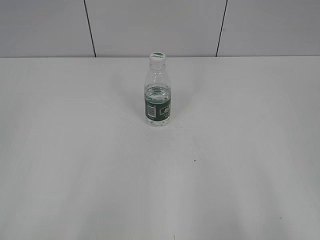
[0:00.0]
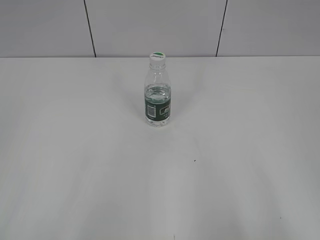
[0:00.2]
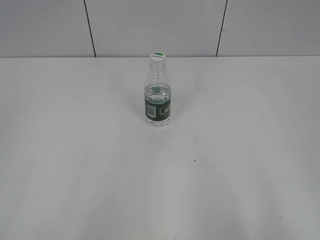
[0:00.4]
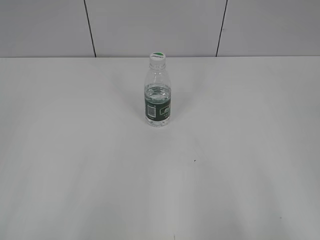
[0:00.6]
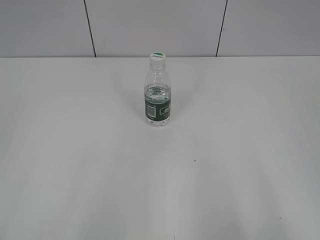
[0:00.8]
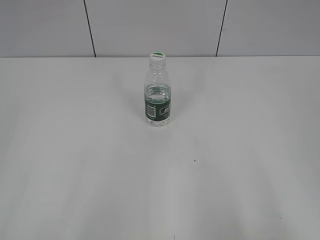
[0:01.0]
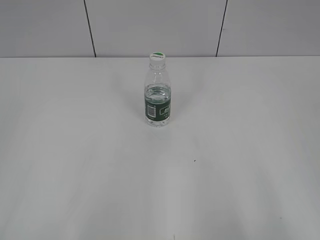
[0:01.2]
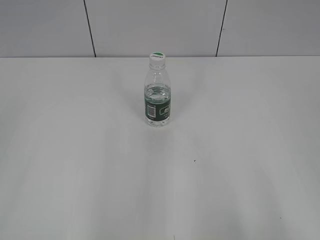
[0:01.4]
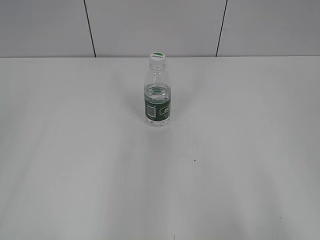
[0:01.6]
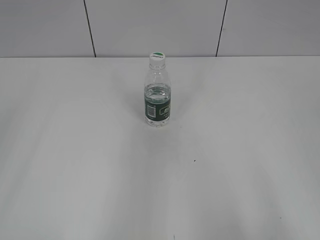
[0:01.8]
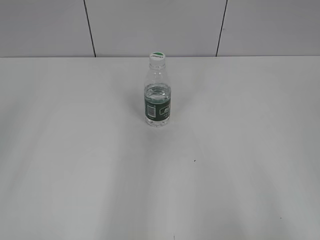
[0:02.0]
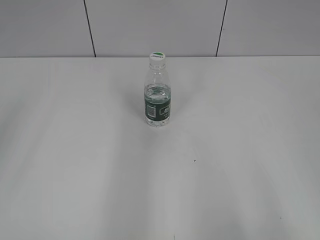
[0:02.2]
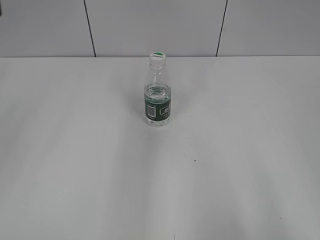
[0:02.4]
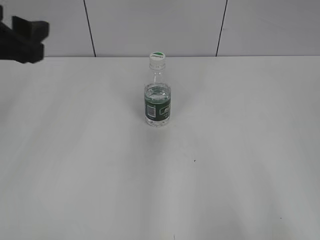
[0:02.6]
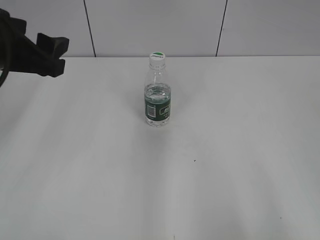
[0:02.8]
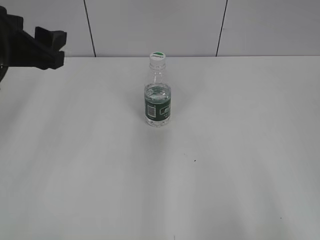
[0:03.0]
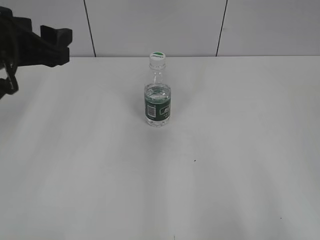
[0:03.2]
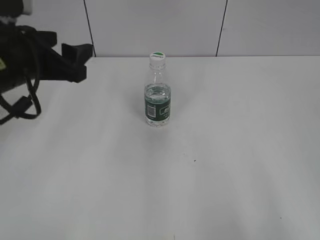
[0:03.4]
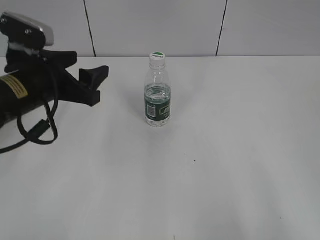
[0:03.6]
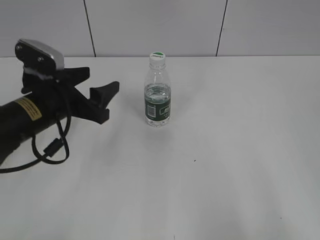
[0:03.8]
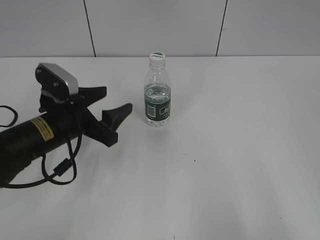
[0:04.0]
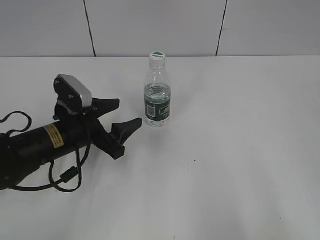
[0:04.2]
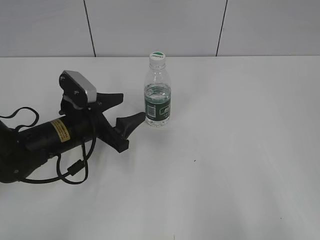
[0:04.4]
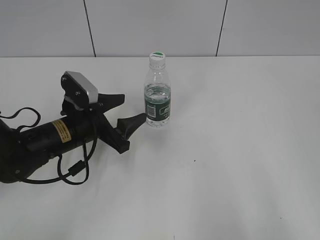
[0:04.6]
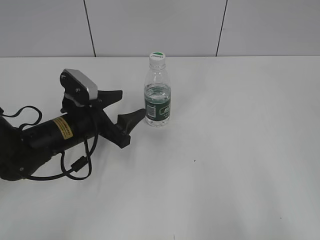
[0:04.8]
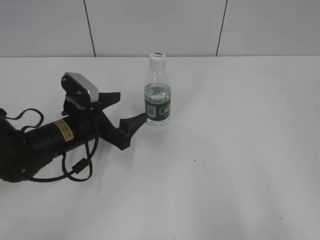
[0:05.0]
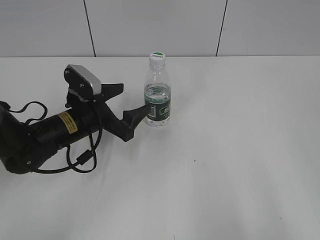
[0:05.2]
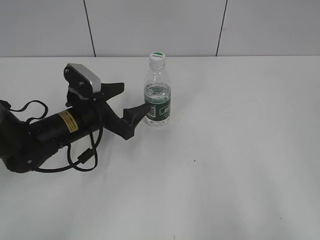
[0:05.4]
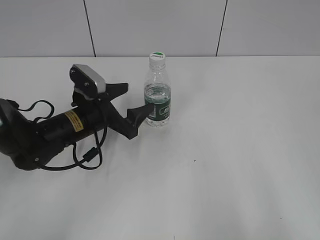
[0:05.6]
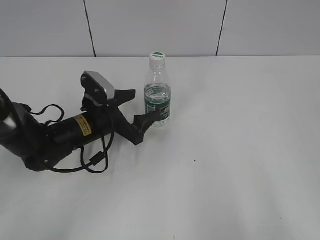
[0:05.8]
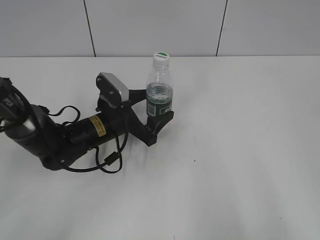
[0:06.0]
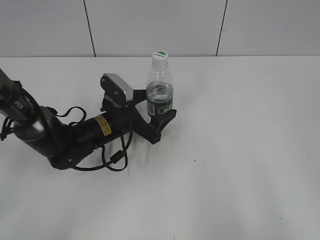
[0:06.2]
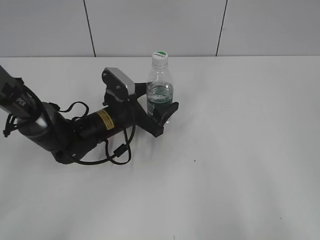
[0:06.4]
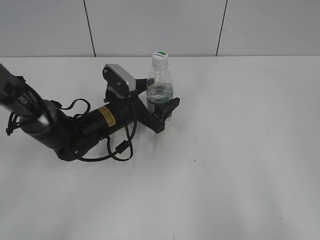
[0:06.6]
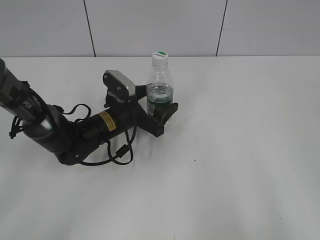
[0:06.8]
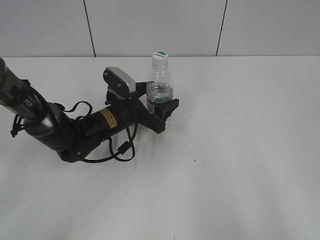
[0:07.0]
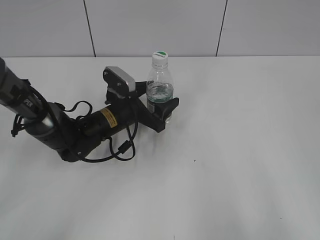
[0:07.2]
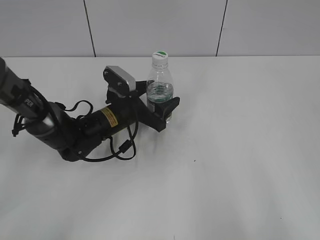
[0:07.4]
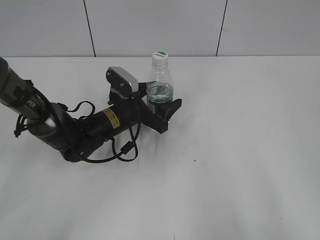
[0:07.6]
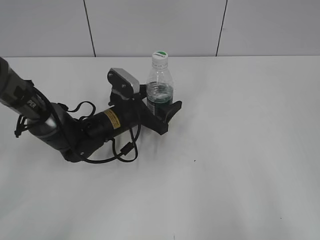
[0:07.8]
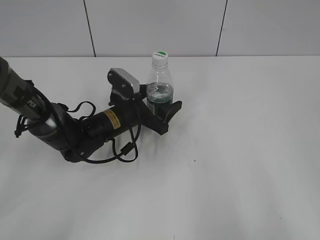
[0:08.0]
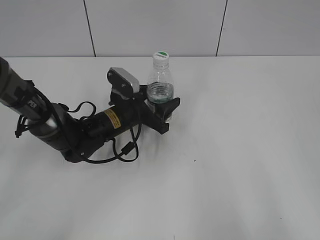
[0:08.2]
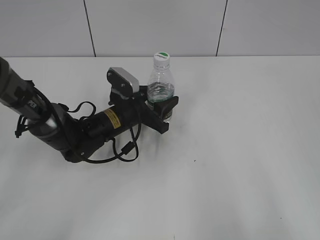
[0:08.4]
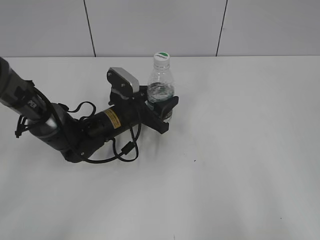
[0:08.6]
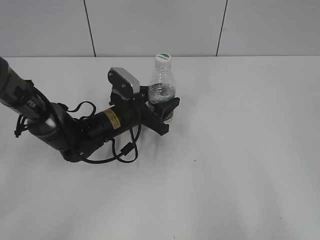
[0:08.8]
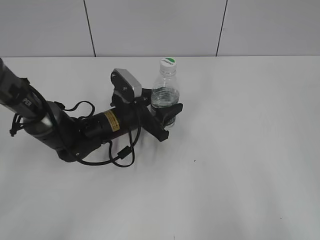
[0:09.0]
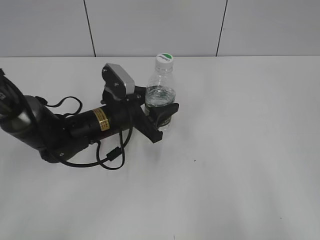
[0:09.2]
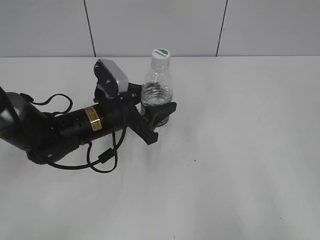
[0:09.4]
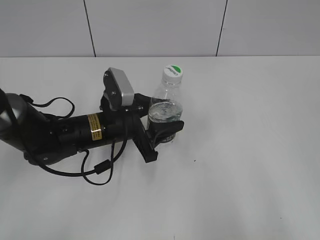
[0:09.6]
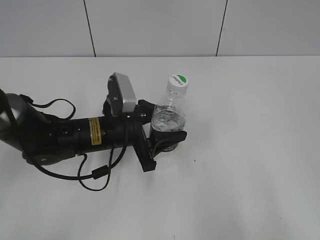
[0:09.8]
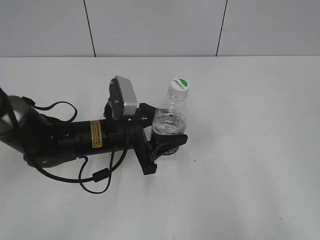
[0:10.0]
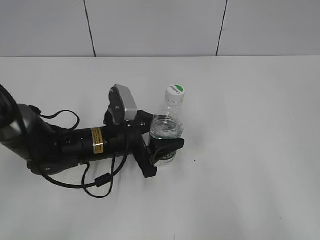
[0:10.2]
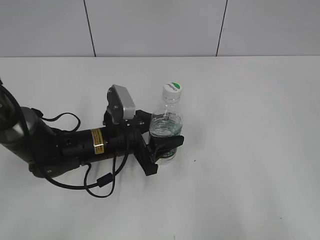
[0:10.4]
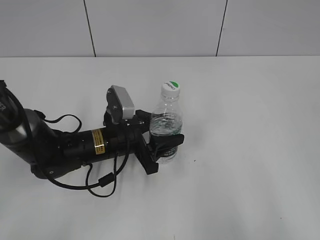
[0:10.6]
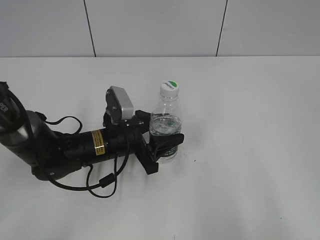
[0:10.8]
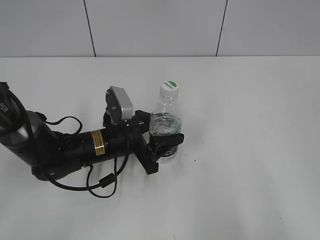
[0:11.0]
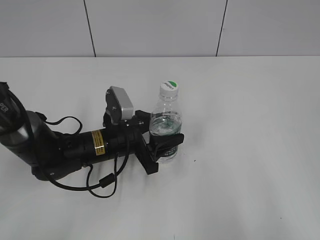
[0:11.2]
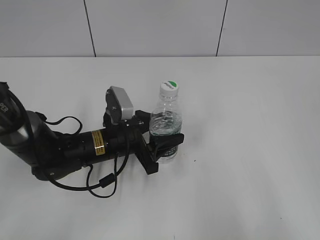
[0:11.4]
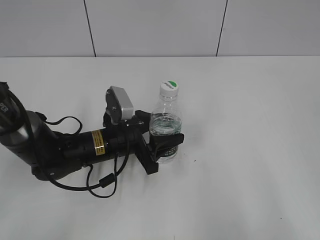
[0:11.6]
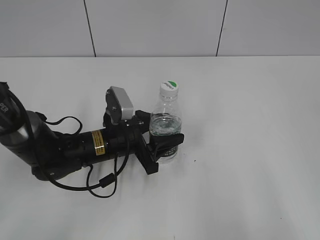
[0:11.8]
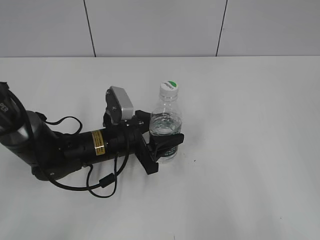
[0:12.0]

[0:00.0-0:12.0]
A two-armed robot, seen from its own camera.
Step, 0:00.0 to 0:08.4: Grasp the bottle and move it to the center of the table with the left gripper.
0:01.6 to 0:03.0: The left gripper is displaced forward by approximately 25 cm.
0:03.0 to 0:04.4: The left gripper travels downward by about 20 cm.
0:04.4 to 0:06.0: The left gripper moves about 5 cm, and opens up.
0:06.0 to 0:07.6: The grippers make only small movements.
0:07.6 to 0:09.0: The left gripper closes up.
0:09.0 to 0:10.4: The left gripper is displaced backward by some 5 cm.
0:10.4 to 0:12.0: The grippers stay close to where they were, moving slightly.

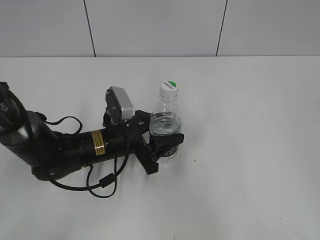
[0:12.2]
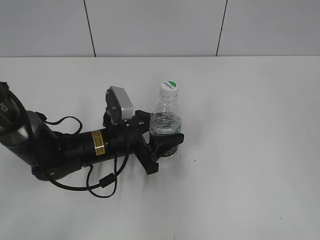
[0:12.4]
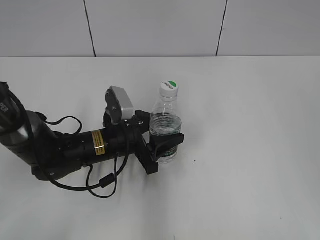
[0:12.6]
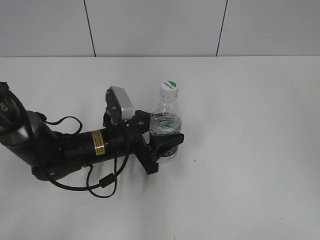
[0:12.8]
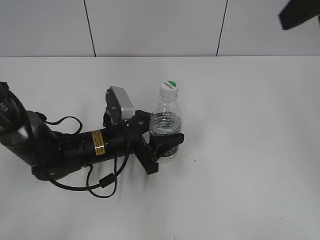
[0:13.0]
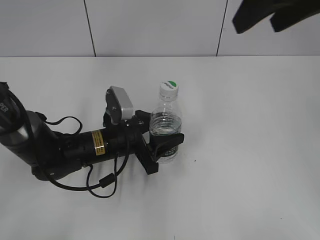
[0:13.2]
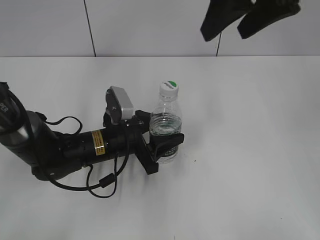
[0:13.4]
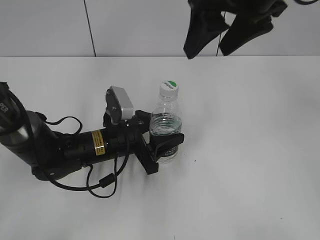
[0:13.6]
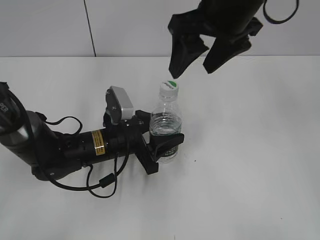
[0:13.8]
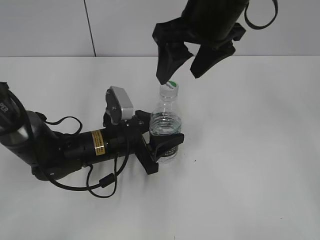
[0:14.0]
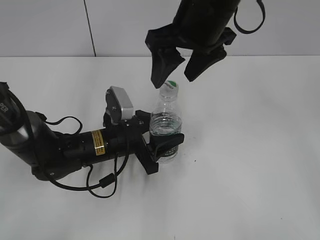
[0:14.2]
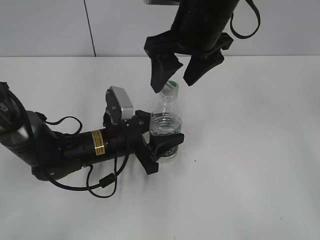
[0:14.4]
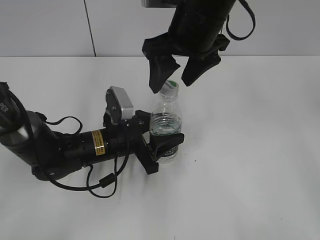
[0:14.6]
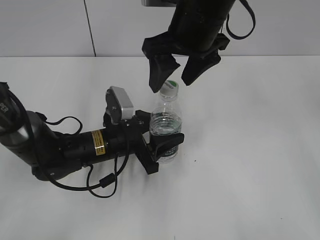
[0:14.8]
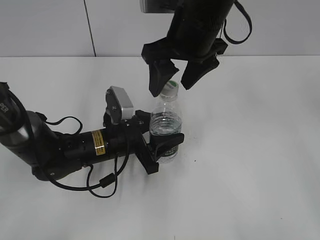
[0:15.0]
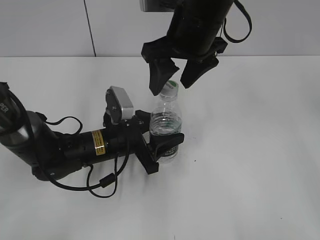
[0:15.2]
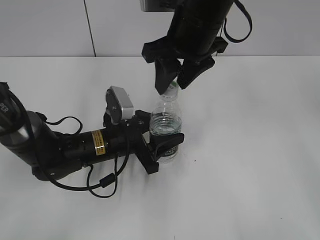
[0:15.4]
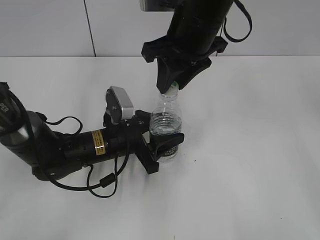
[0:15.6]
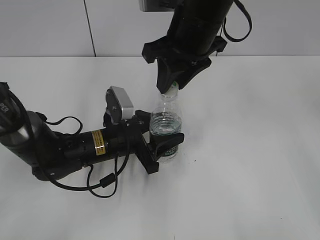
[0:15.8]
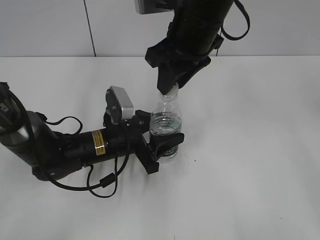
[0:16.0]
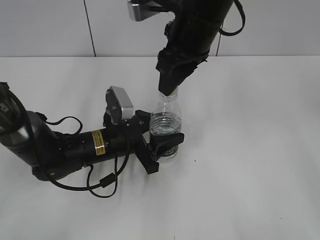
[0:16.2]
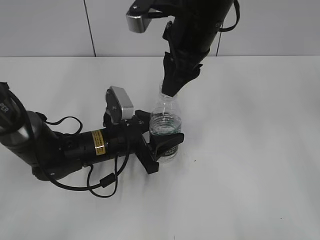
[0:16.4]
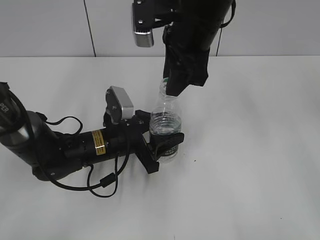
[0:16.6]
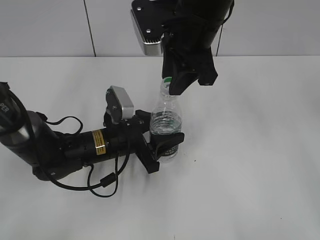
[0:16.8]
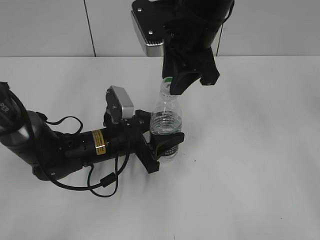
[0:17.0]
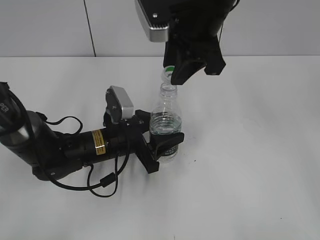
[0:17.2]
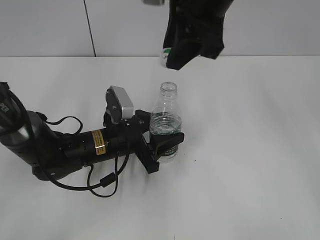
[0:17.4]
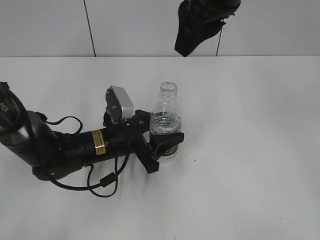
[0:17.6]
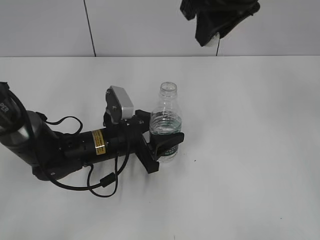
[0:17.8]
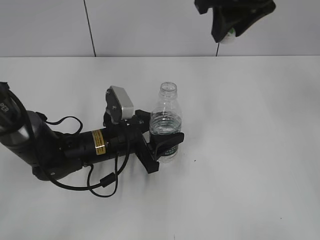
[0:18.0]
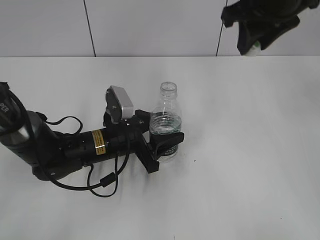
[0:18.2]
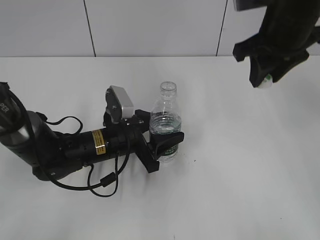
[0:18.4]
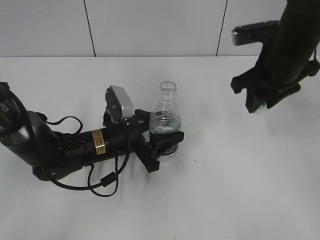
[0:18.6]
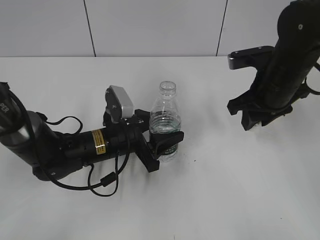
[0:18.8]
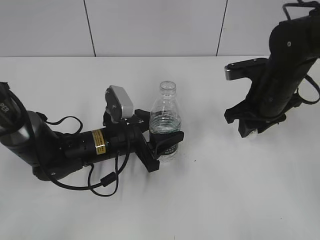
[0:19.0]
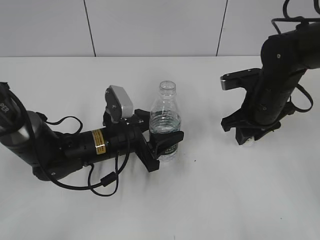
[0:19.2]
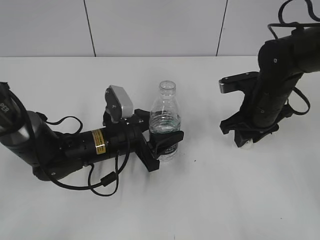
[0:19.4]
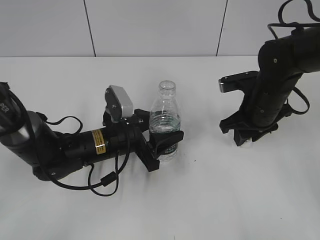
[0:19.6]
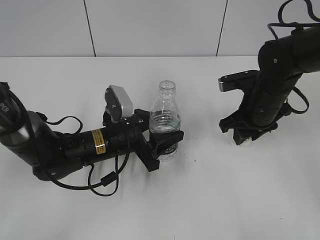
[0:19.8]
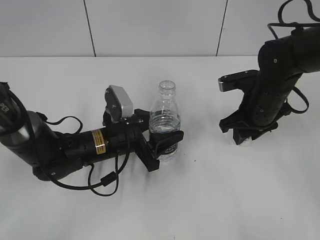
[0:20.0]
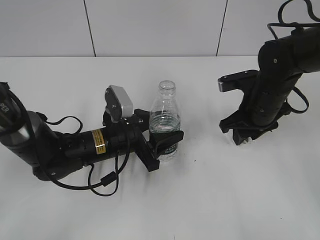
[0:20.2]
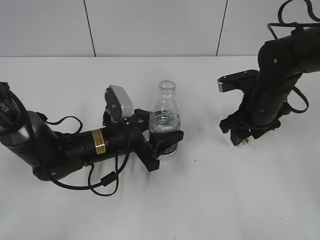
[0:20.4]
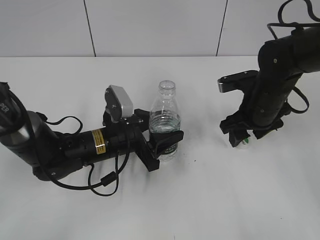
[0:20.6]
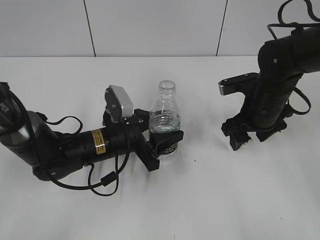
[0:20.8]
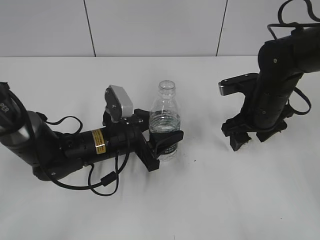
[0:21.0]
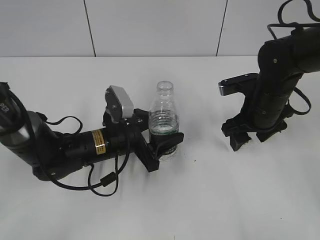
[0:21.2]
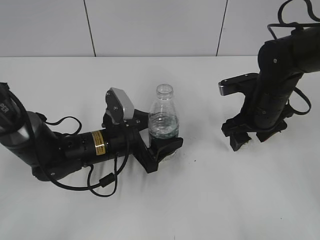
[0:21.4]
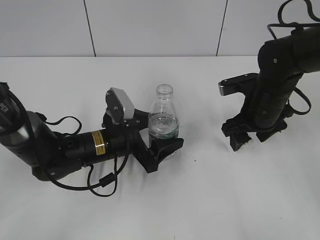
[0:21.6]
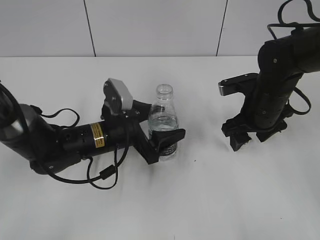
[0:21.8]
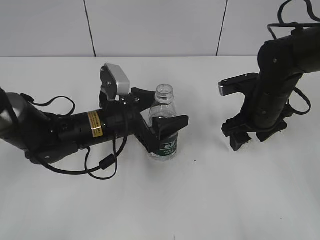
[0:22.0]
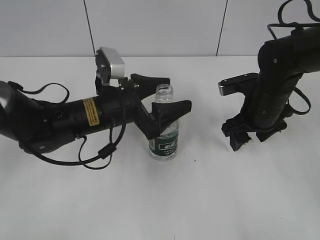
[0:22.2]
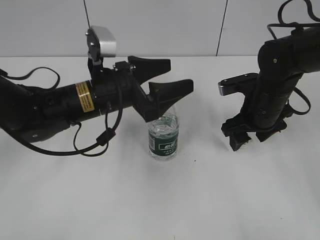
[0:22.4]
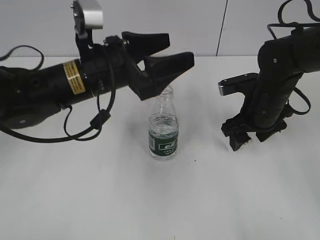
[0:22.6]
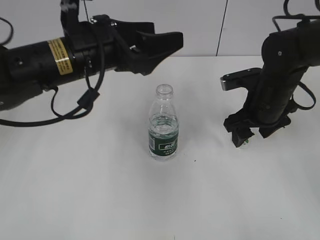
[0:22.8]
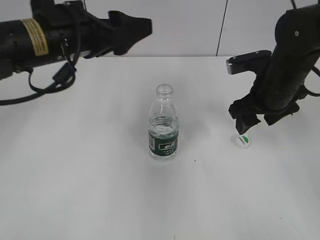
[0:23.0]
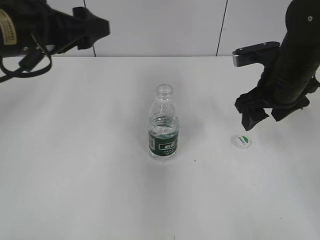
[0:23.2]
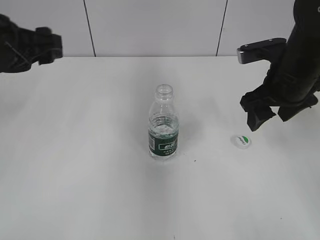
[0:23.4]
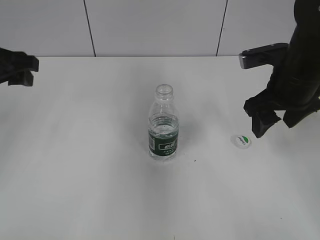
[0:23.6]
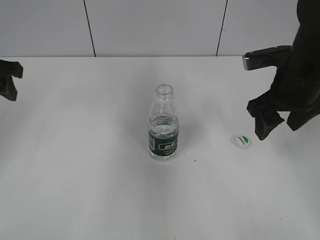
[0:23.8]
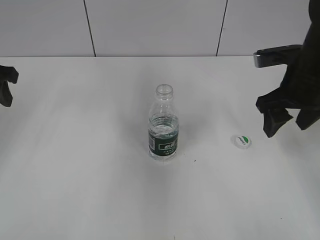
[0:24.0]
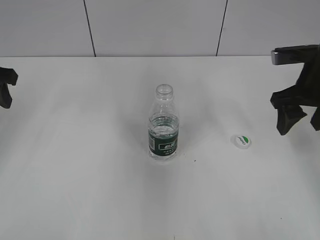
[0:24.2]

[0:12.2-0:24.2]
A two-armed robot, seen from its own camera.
Step, 0:13.2 to 0:17.2: Unscrew the bottle cap with the right gripper while holding the bottle with the left gripper.
Step, 0:17.4 to 0:20.6: Place the bottle cap on the table with the right gripper.
Step, 0:20.8 to 0:22.2: Place the bottle on the table with the left gripper.
0:12.2 to 0:13.8: The right gripper travels forward and to the left by roughly 35 cm.
0:13.8 to 0:15.2: The right gripper changes place by about 5 cm.
0:15.2 to 0:16.6: The right gripper closes up.
0:16.6 to 0:18.2: The right gripper is displaced to the right and upward by approximately 10 cm.
0:18.2 to 0:19.8: The right gripper heads downward, covering some 20 cm.
0:19.8 to 0:21.2: The right gripper opens up.
0:21.2 to 0:22.6: The left gripper moves upward, approximately 15 cm, and opens its fingers.
0:22.6 to 0:24.2: The left gripper heads to the left, covering roughly 20 cm, and closes up; the right gripper travels upward and to the right by some 10 cm.
